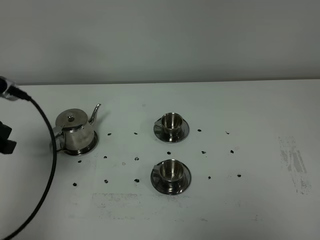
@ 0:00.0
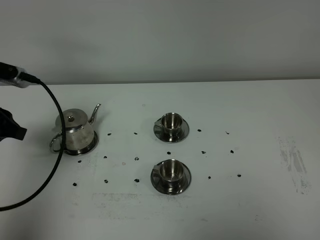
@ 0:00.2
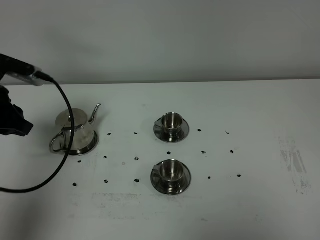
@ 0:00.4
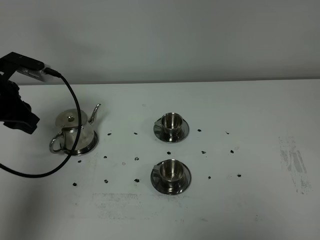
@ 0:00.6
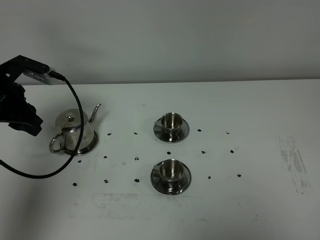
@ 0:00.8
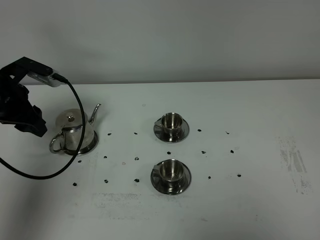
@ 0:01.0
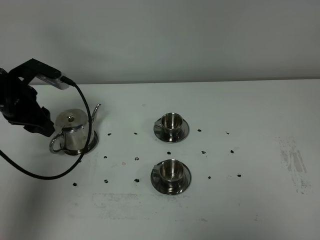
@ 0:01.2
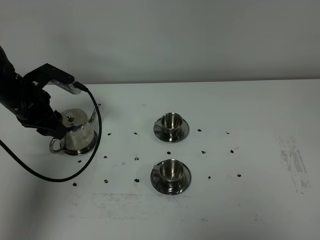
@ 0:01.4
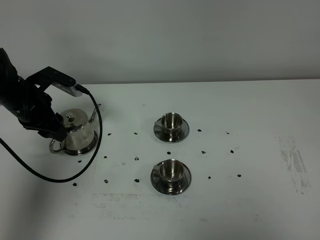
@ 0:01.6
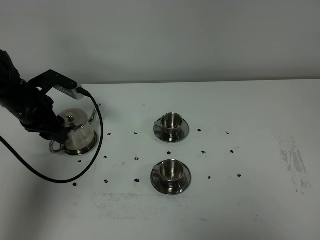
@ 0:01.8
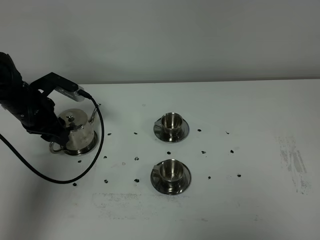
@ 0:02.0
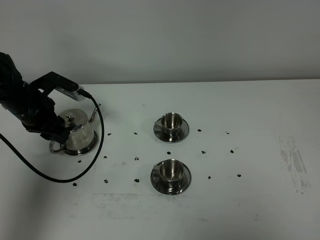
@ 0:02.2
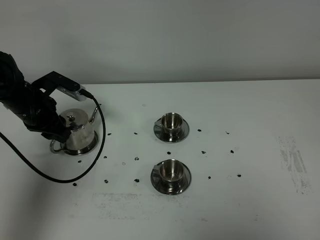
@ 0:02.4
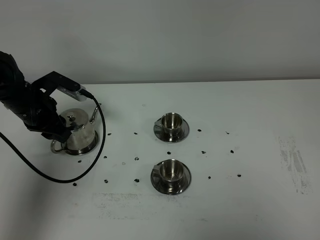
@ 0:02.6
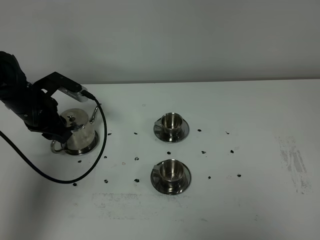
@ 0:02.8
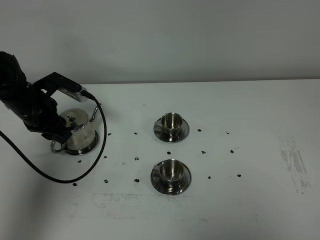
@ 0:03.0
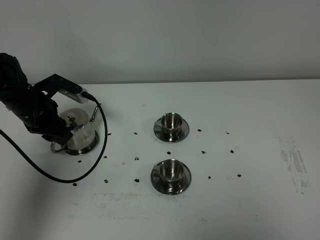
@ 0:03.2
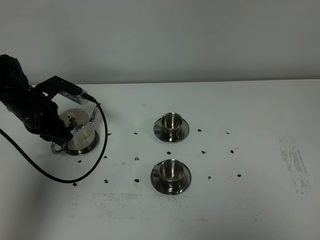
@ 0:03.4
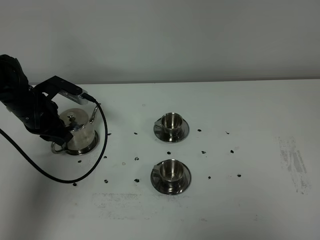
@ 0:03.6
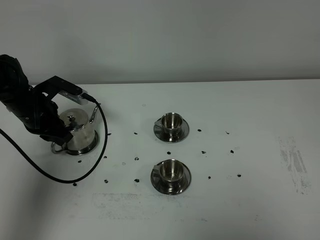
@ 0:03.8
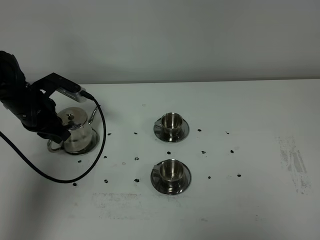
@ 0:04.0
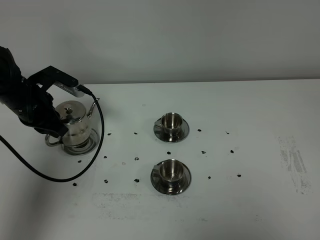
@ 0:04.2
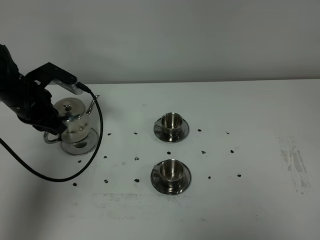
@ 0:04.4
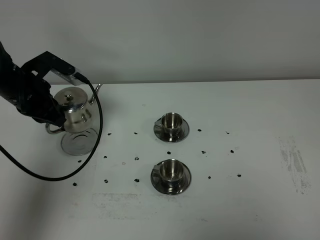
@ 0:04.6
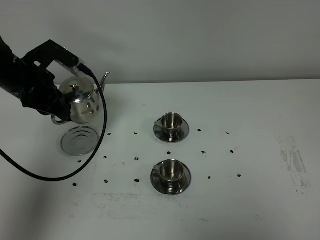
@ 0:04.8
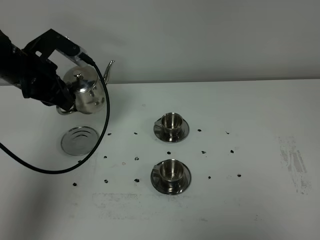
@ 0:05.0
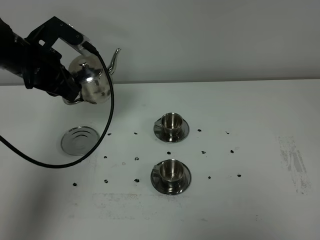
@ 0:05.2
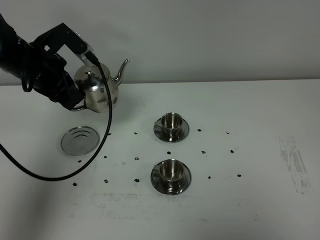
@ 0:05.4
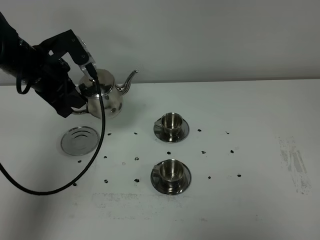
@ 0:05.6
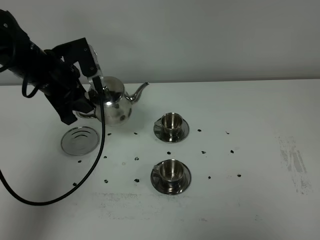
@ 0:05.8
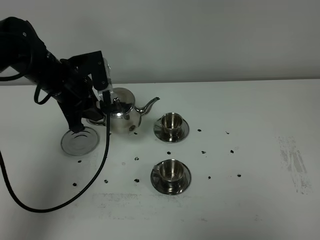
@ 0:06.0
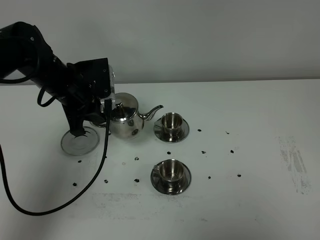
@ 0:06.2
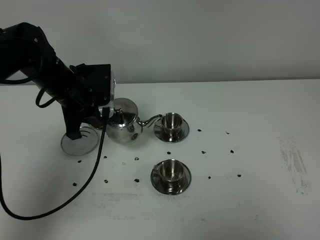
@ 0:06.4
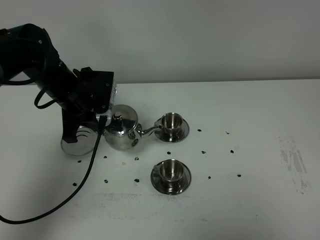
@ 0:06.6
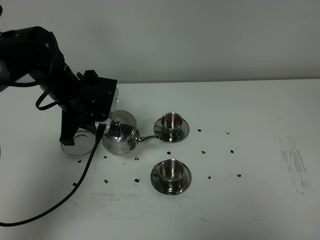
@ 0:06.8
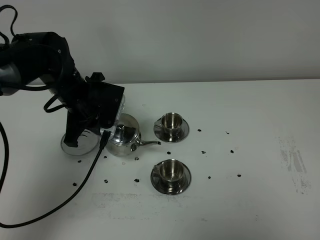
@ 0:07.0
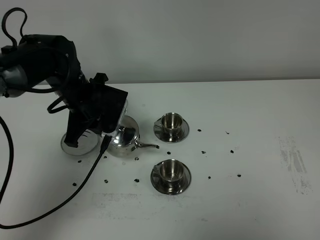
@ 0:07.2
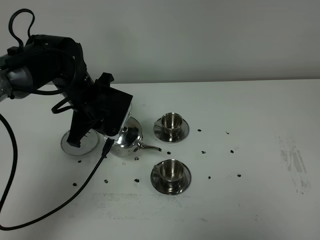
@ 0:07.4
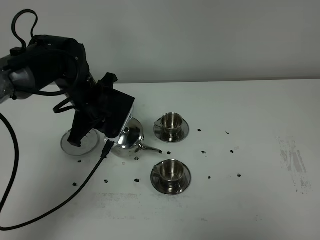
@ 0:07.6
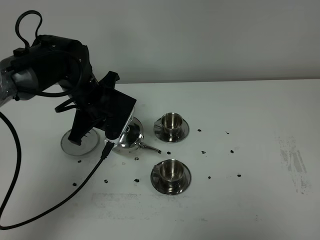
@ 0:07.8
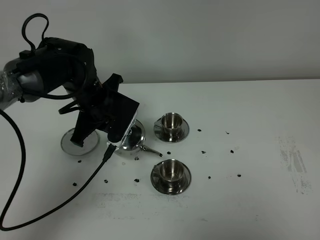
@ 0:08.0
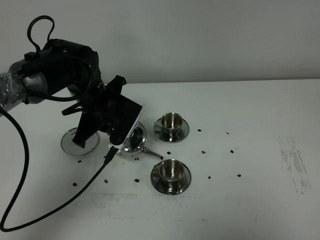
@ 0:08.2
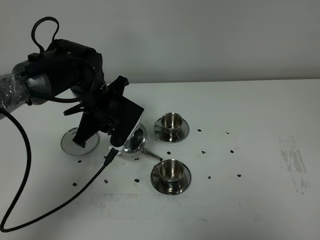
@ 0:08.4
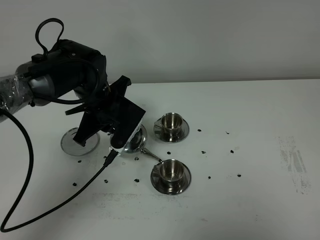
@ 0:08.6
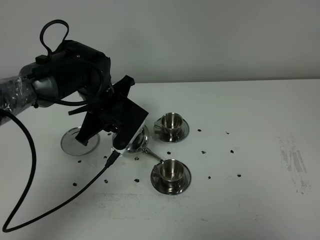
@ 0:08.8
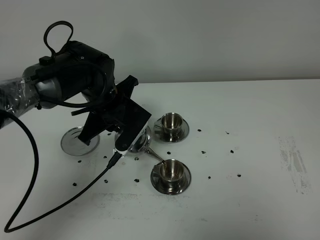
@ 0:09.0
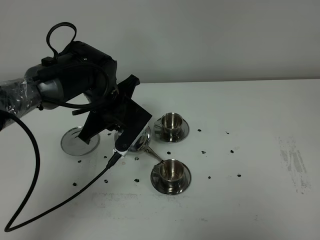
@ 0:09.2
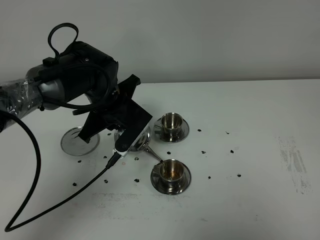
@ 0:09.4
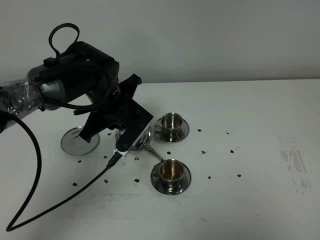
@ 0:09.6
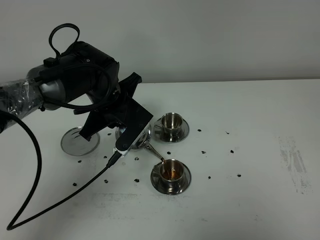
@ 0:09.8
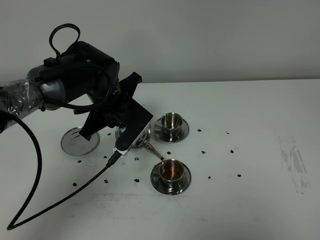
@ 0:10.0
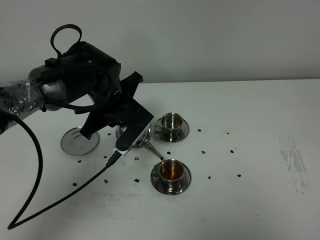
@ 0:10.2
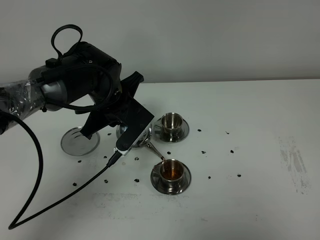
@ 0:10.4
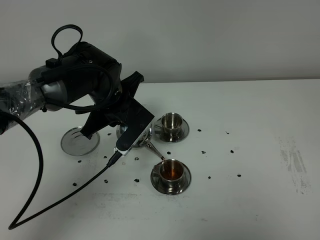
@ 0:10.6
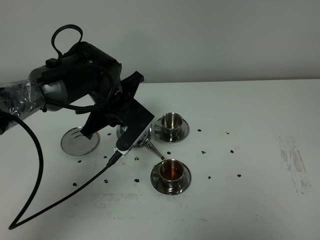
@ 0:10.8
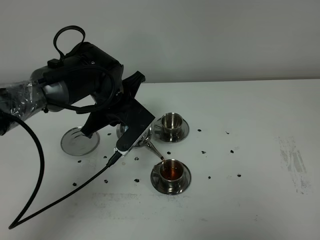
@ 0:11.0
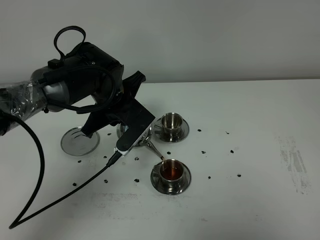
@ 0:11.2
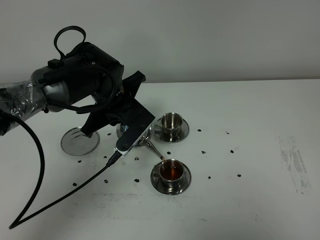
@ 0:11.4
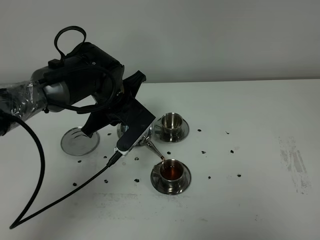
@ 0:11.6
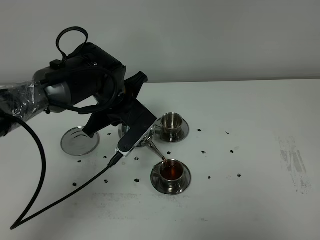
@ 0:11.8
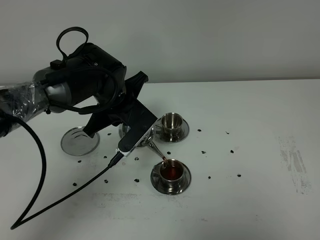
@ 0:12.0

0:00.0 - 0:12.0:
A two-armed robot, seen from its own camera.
Task of the whole recording: grasp the stainless steel teapot and pour the tea into the two stainless steel teacups one by one, put the stainless steel teapot back in its original place.
Step, 0:00.0 - 0:04.2: Pick up the teapot with the left gripper.
0:00.0 - 0:01.6: The left gripper heads forward and downward, covering about 15 cm.
0:01.6 - 0:03.0: The grippers make only small movements.
0:03.0 - 0:04.4: The left gripper closes its fingers.
0:04.4 - 0:06.0: The left gripper moves to the right, some 10 cm.
0:06.0 - 0:07.6: The left gripper moves some 5 cm.
0:07.6 - 0:09.0: The grippers make only small movements.
0:09.0 - 0:10.4: There are only small adjustments of the grippers.
0:10.4 - 0:12.0: Neither gripper changes place.

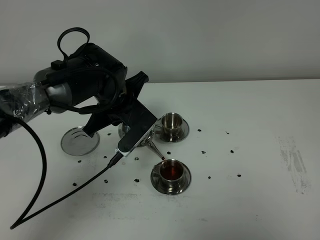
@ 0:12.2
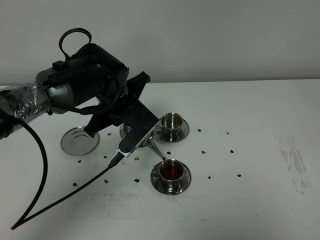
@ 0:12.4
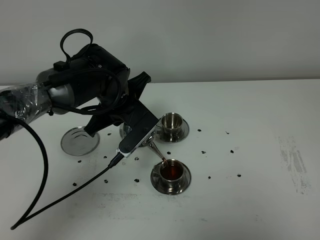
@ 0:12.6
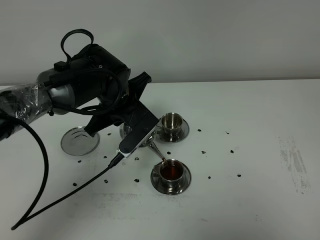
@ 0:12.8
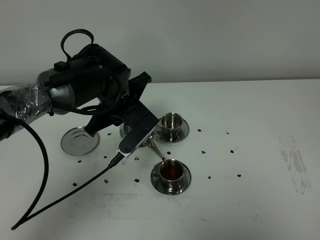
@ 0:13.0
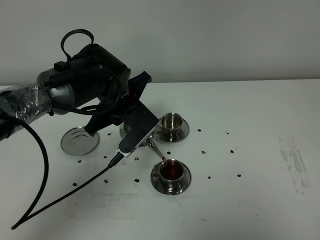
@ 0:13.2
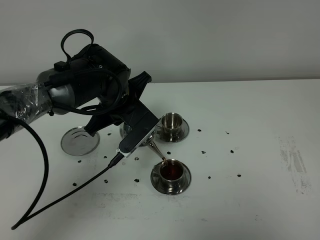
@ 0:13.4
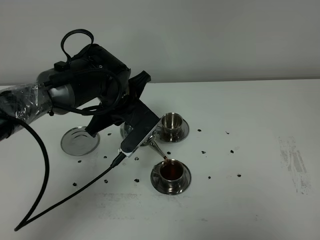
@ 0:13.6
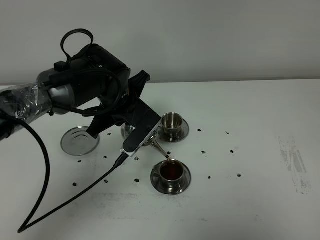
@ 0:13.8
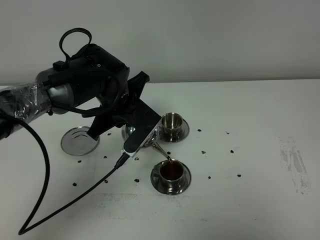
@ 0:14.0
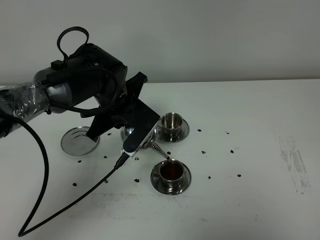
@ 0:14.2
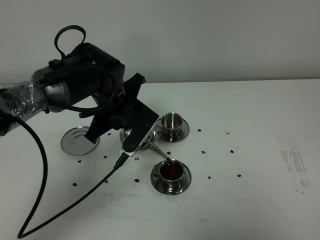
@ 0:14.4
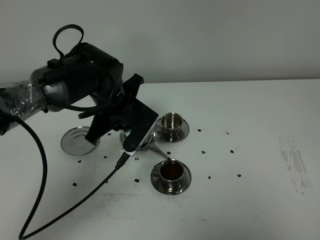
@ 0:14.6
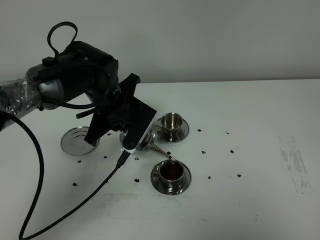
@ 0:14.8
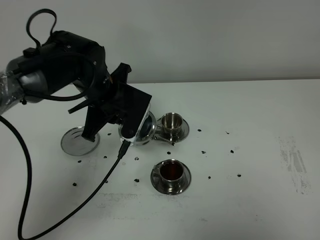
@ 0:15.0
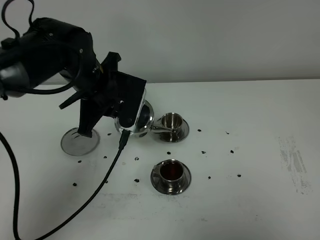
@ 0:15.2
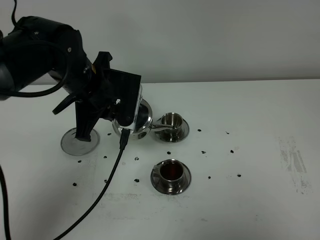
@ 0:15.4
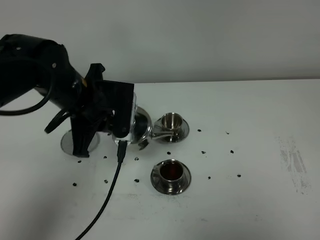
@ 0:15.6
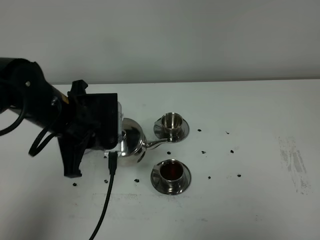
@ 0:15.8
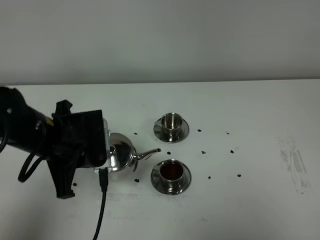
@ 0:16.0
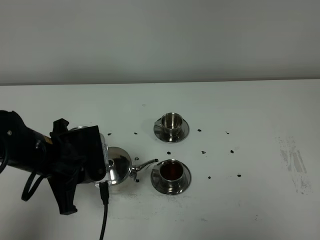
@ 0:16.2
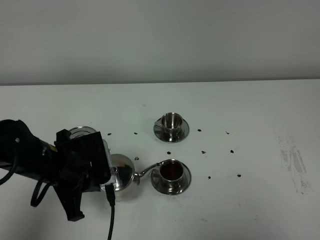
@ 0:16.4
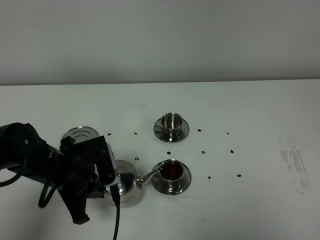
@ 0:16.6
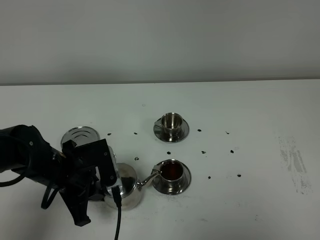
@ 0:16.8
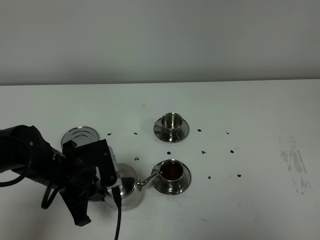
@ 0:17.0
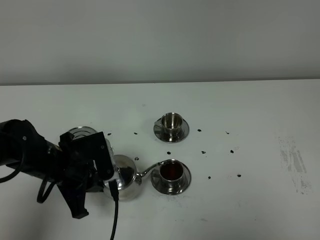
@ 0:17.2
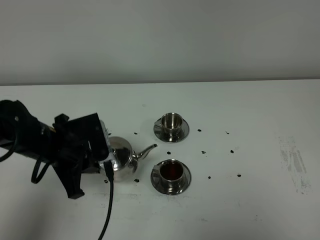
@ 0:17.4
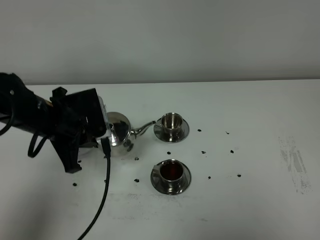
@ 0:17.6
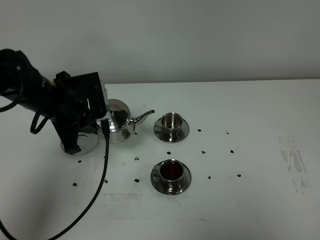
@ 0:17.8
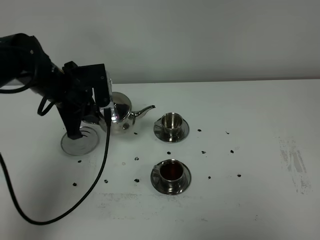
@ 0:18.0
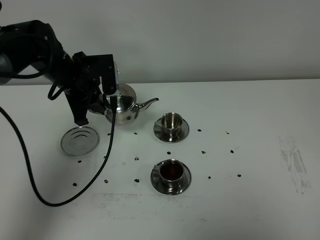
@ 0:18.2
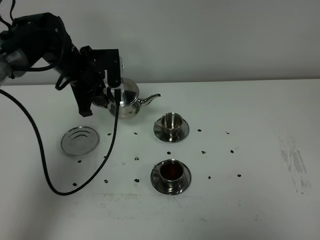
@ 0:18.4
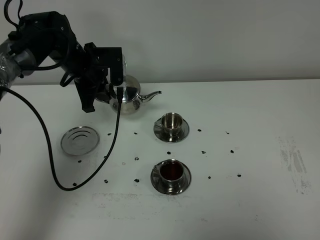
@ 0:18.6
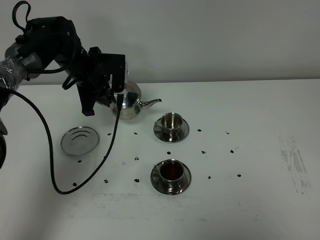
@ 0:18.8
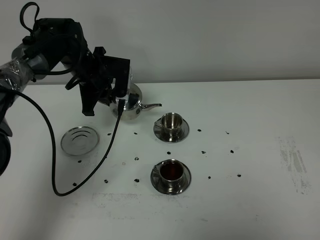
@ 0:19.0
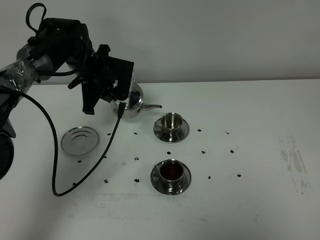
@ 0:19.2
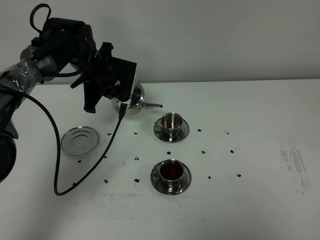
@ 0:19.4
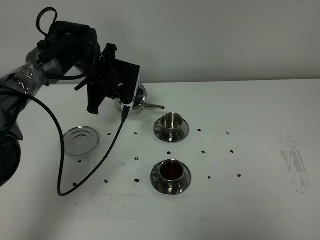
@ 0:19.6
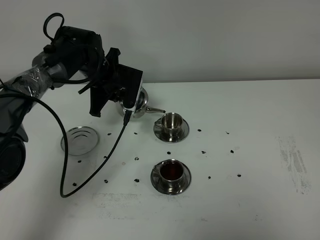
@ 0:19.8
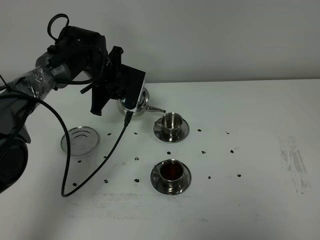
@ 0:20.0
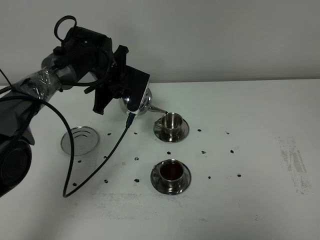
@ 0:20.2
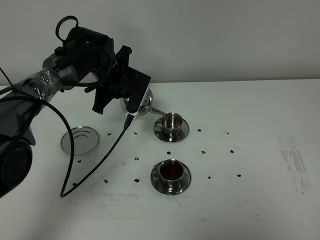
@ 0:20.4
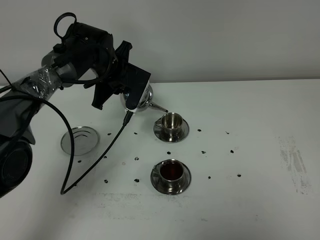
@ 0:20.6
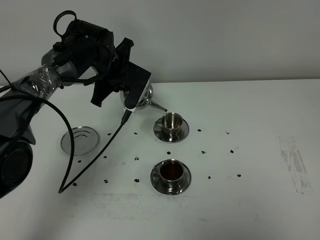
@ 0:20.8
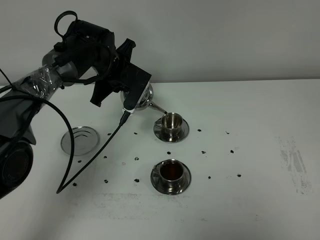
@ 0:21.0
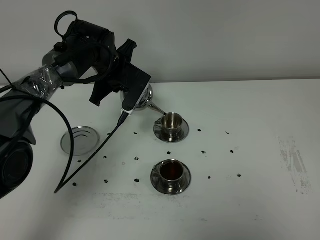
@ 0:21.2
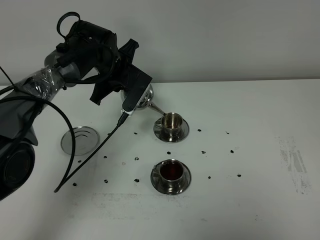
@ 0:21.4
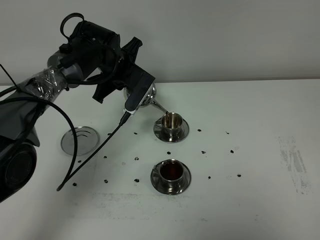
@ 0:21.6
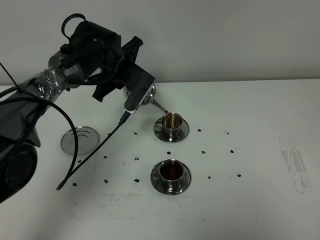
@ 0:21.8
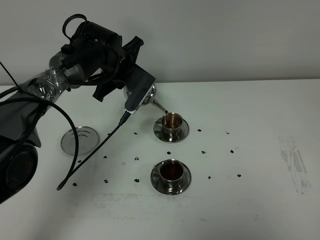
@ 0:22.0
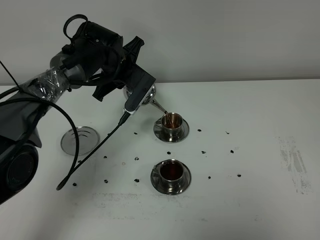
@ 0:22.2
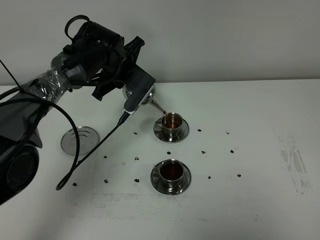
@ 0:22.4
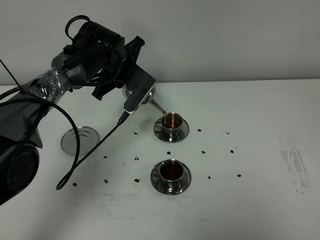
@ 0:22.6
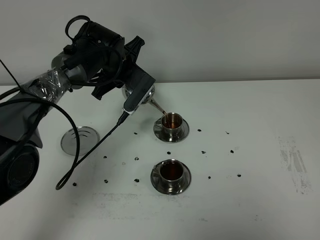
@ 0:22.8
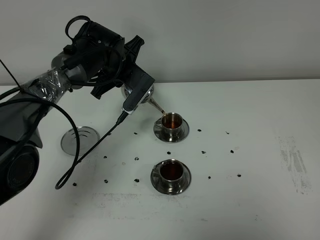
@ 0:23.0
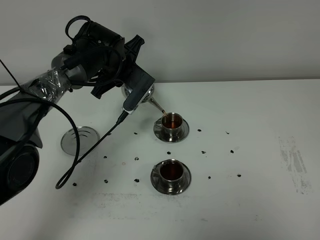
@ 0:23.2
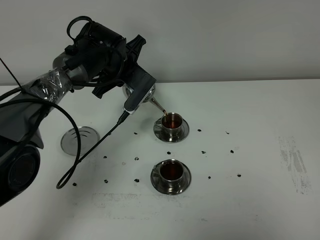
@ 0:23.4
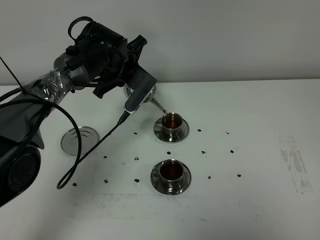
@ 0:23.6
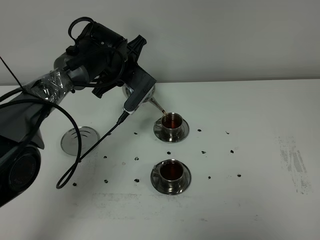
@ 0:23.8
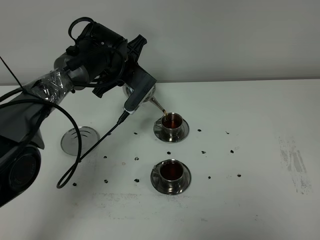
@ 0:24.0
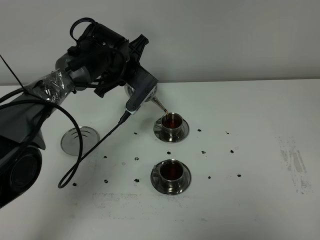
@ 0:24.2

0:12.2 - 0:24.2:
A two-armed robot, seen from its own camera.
Task of the whole recording: grasp the stainless steel teapot and pour the tea into the two stainless steel teacups one by one, put the stainless steel teapot back in its original place.
0:12.2 - 0:13.8: Both grippers stay put.
0:13.8 - 0:15.2: The left gripper moves upward, approximately 5 cm.
0:15.2 - 0:16.6: The left gripper goes about 15 cm backward, downward and to the left.
0:16.6 - 0:18.2: The left gripper shifts approximately 15 cm forward.
0:18.2 - 0:19.8: The left gripper moves roughly 10 cm.
0:19.8 - 0:21.2: The grippers make only small movements.
0:21.2 - 0:22.6: There are only small adjustments of the grippers.
0:22.6 - 0:24.2: Neither gripper changes place.
